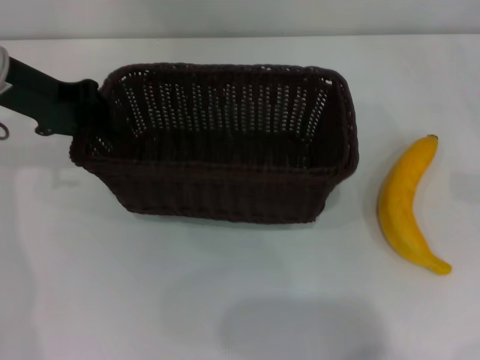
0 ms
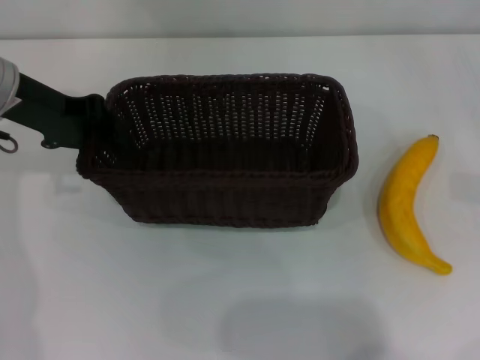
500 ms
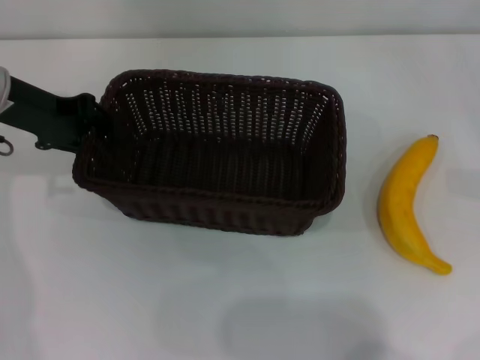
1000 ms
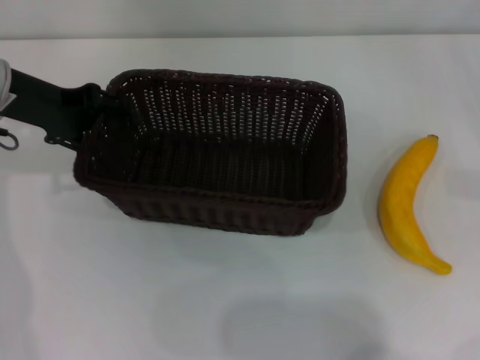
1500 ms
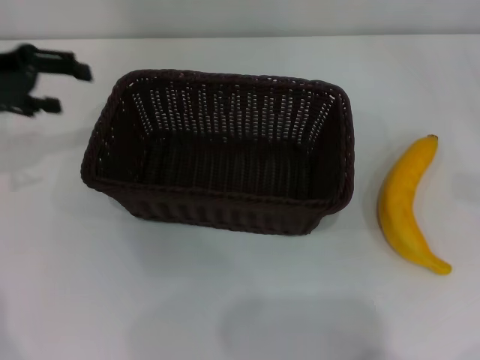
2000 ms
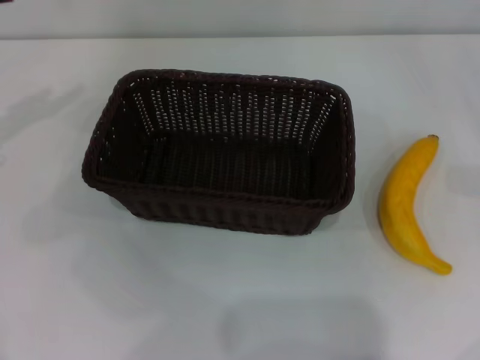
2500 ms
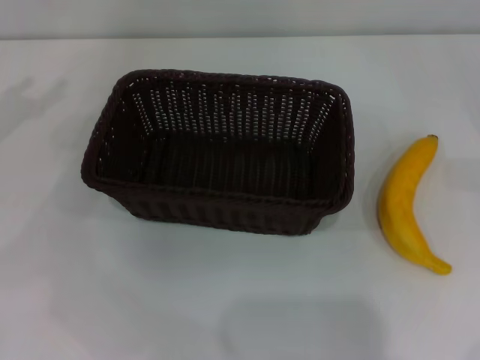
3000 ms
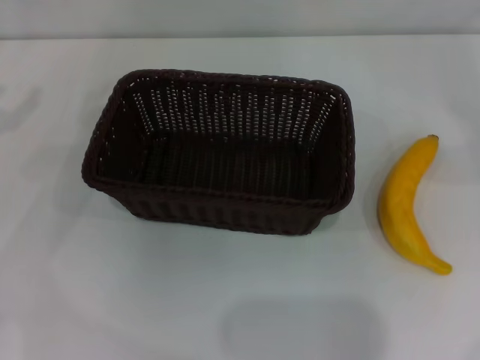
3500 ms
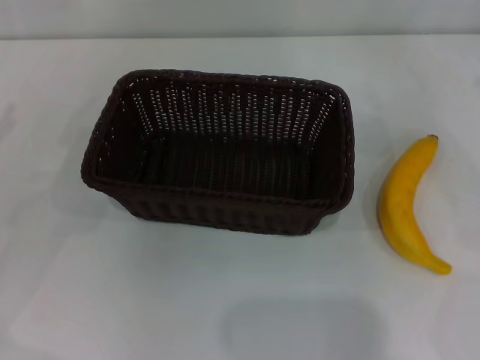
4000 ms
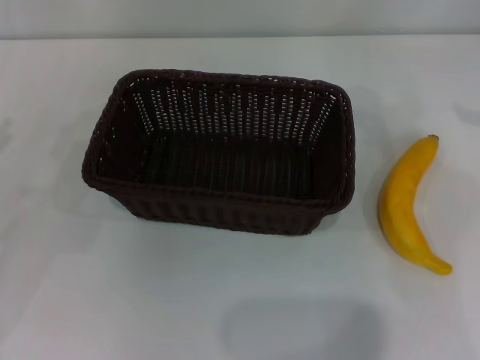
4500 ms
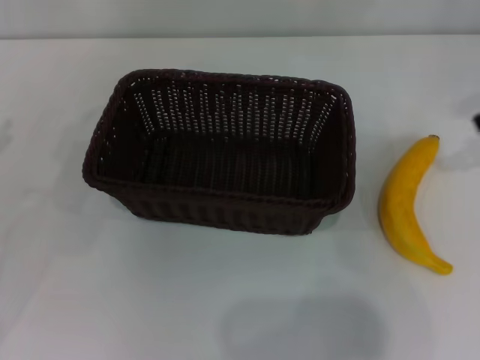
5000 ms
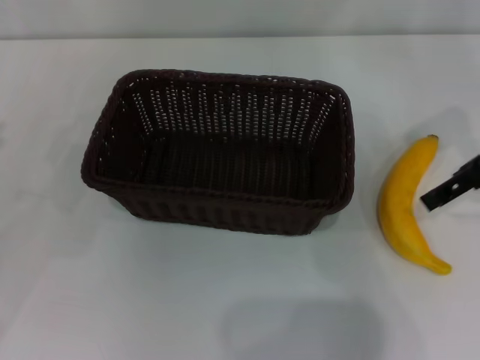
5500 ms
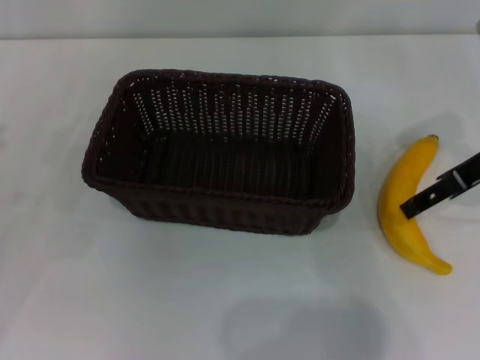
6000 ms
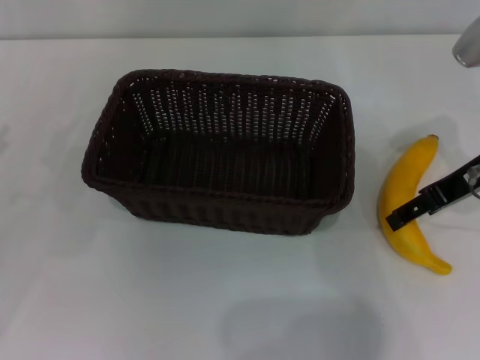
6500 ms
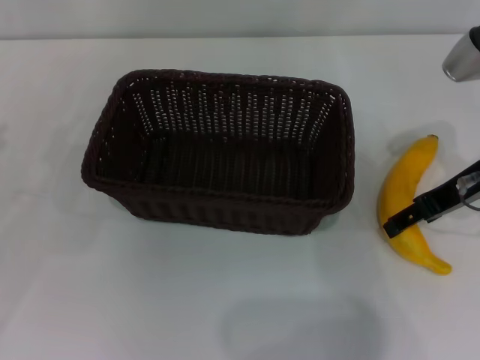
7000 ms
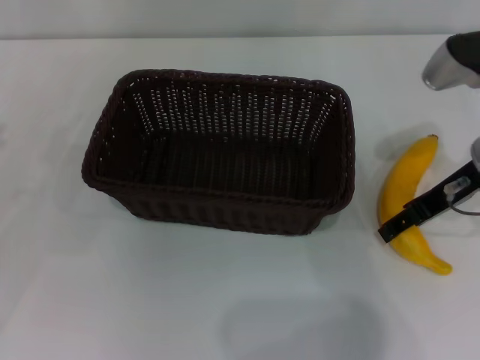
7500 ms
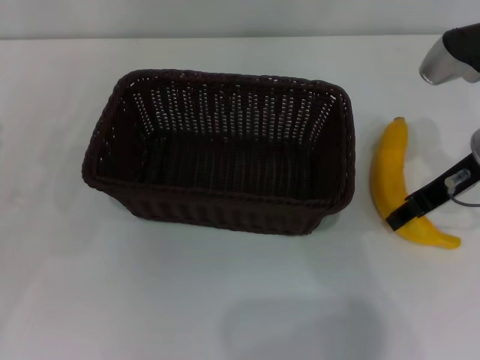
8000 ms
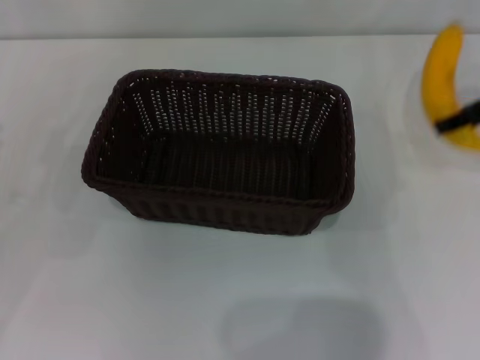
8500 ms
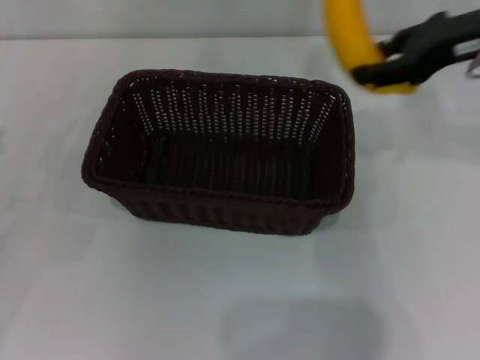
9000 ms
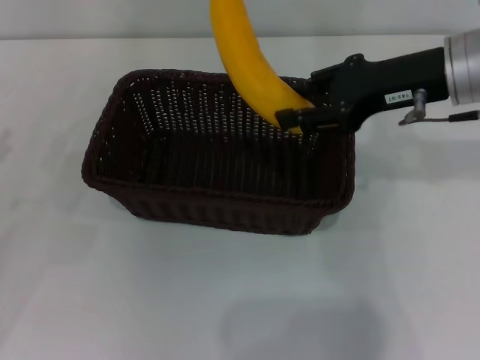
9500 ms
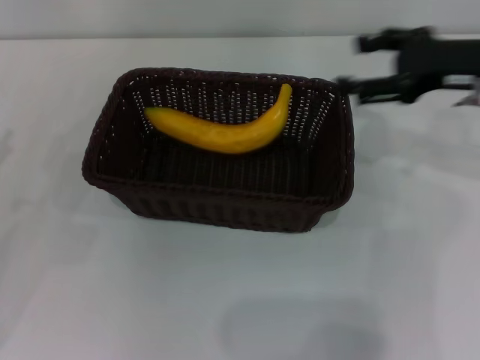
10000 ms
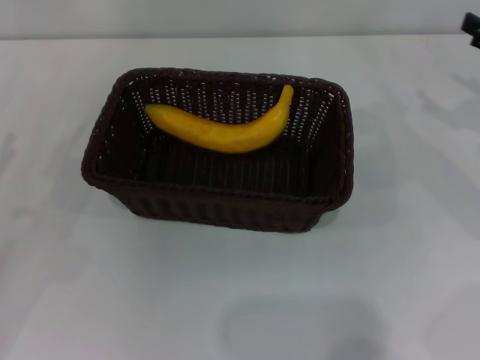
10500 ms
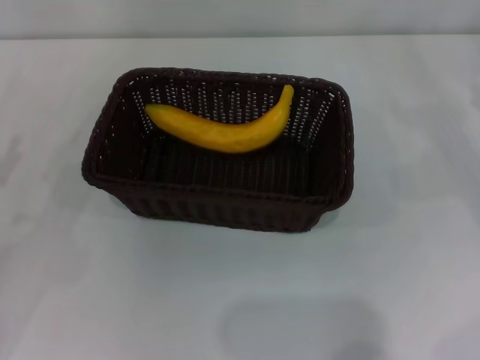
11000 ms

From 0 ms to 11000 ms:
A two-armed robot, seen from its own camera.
Step, from 0 ms to 1500 ms: Place the dark basket in the center of view with the left gripper.
Step, from 2000 ms to 8500 ms: Pick up the banana with the right gripper.
Step, from 9000 ms to 9500 ms: Place the banana into the dark basket with the right gripper.
From 0 ms to 2000 ms: The left gripper heads to the left, covering approximately 5 cm, and opens its fingers.
From 2000 ms to 3500 ms: The left gripper heads to the left and backward, covering about 10 cm.
From 3500 ms to 5500 ms: The right gripper moves to the left, approximately 20 cm.
From 5500 ms to 7500 ms: The right gripper moves downward, roughly 5 cm.
From 7500 ms to 9000 ms: The right gripper shifts some 10 cm upward, and closes.
From 9000 ms to 11000 ms: The left gripper shifts by roughly 5 cm. The right gripper moves downward and to the right, about 20 cm, and opens up.
